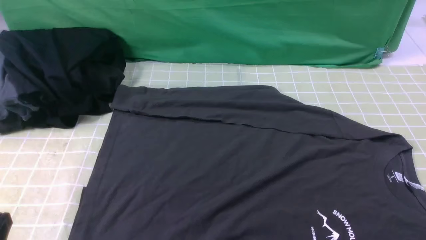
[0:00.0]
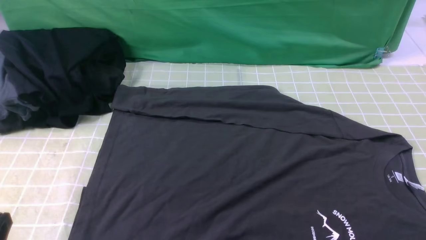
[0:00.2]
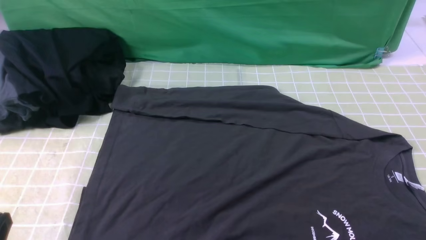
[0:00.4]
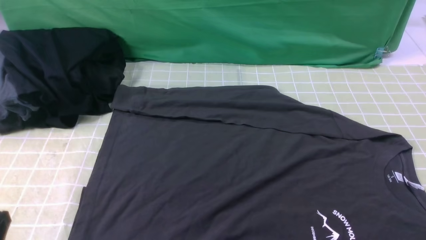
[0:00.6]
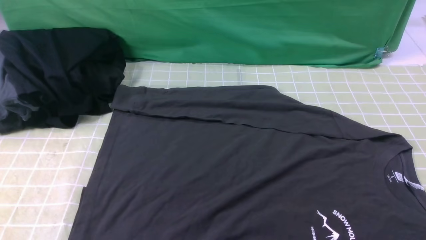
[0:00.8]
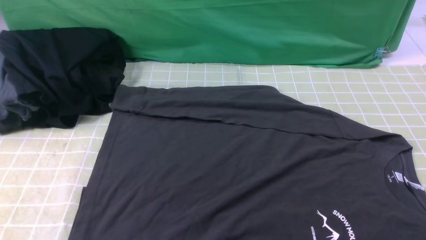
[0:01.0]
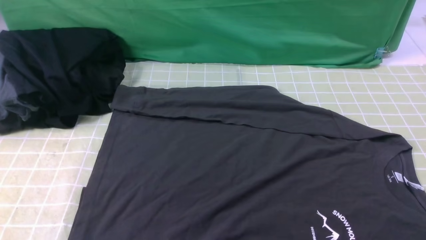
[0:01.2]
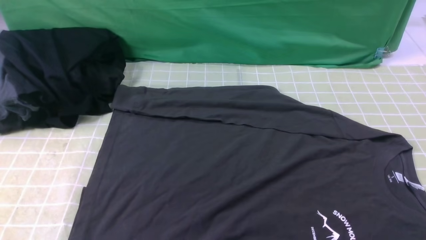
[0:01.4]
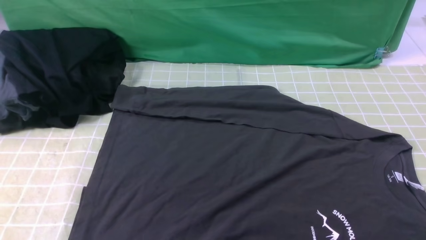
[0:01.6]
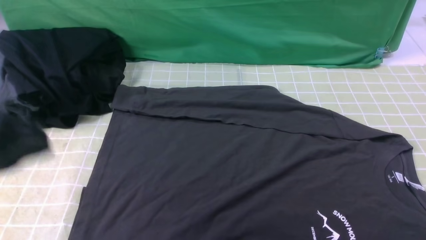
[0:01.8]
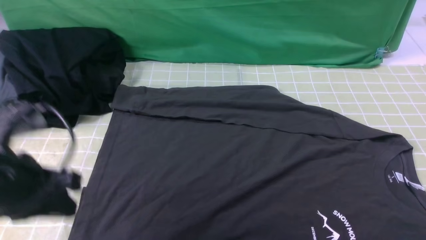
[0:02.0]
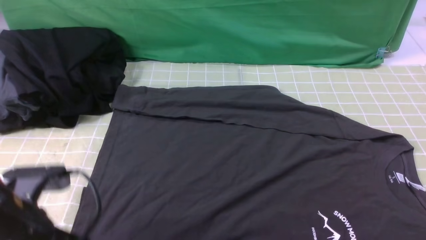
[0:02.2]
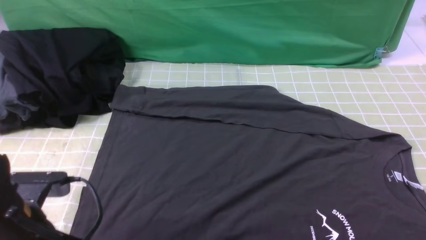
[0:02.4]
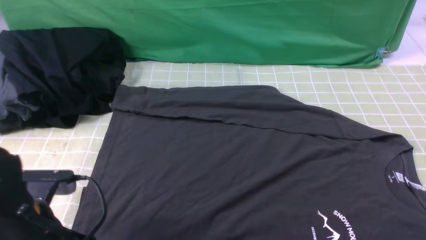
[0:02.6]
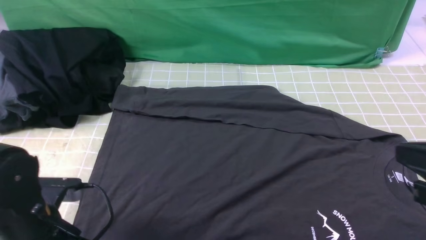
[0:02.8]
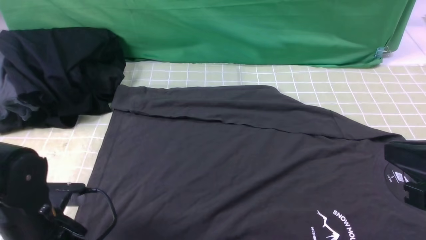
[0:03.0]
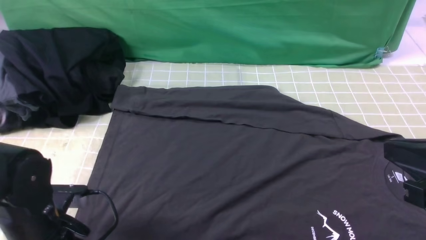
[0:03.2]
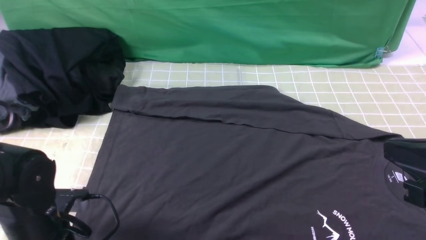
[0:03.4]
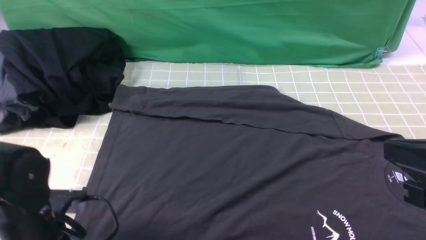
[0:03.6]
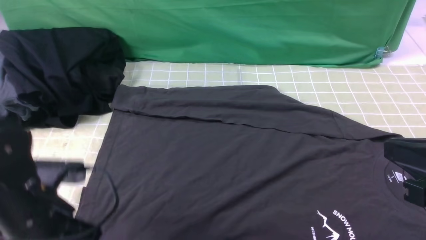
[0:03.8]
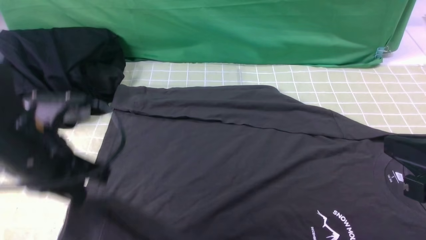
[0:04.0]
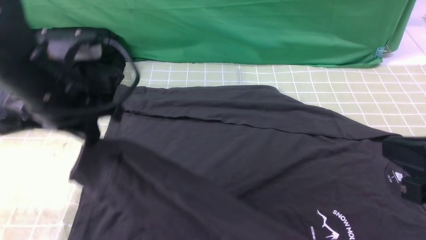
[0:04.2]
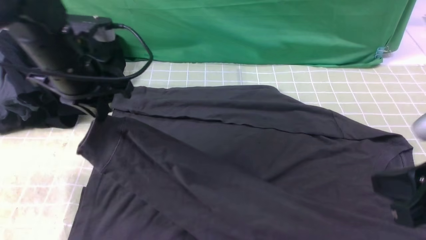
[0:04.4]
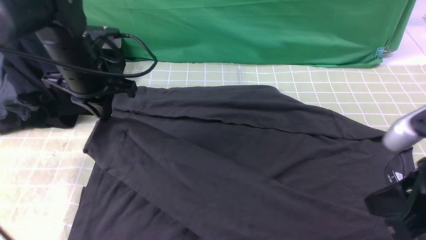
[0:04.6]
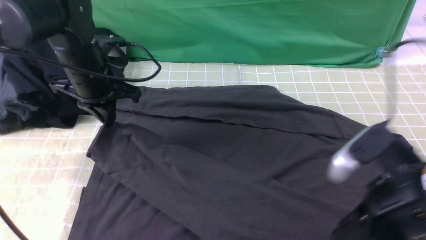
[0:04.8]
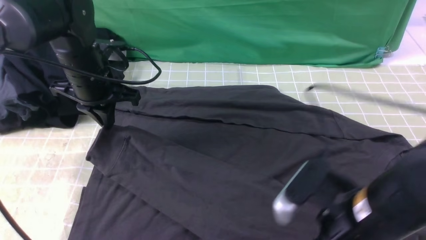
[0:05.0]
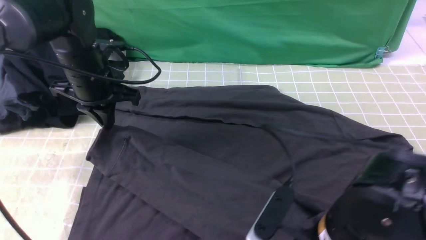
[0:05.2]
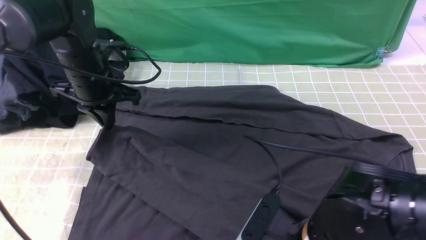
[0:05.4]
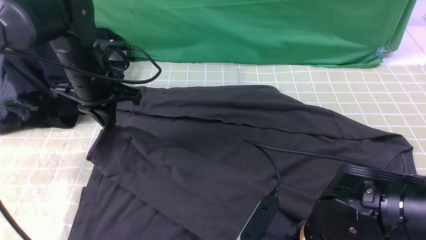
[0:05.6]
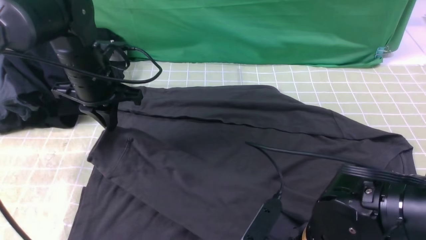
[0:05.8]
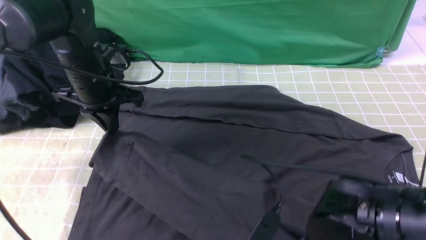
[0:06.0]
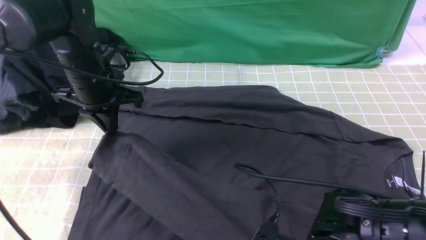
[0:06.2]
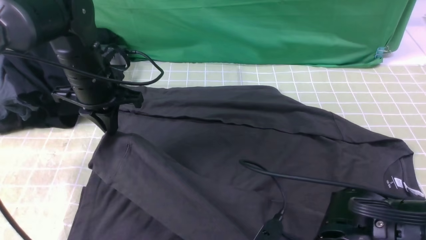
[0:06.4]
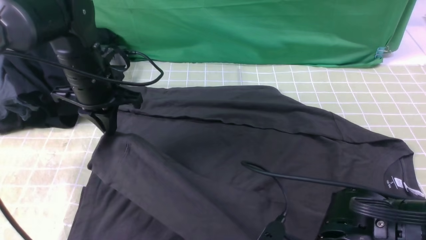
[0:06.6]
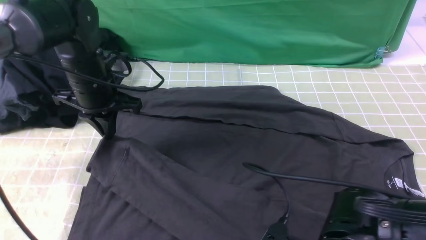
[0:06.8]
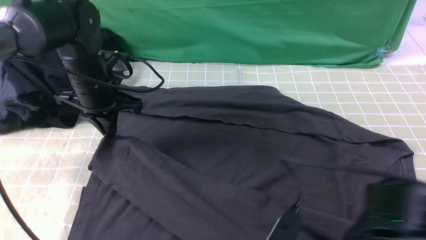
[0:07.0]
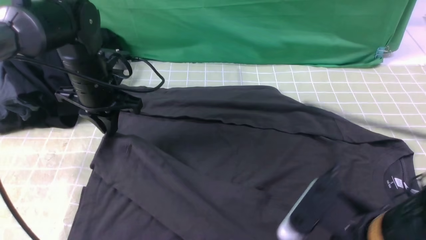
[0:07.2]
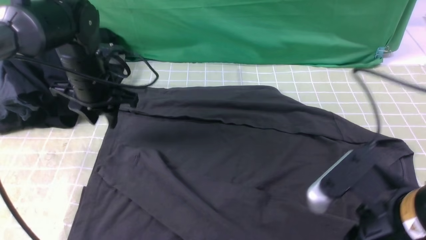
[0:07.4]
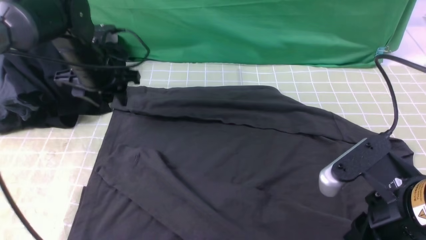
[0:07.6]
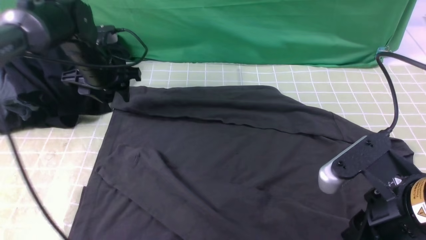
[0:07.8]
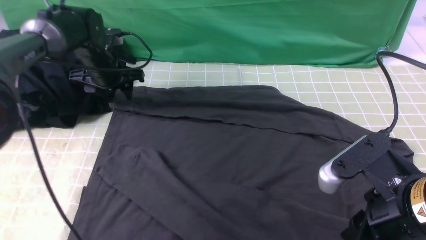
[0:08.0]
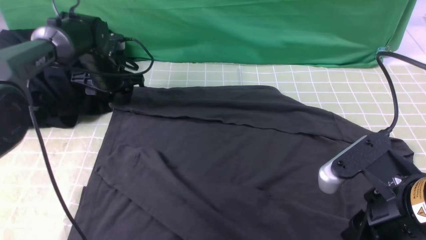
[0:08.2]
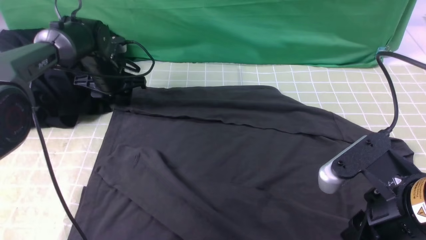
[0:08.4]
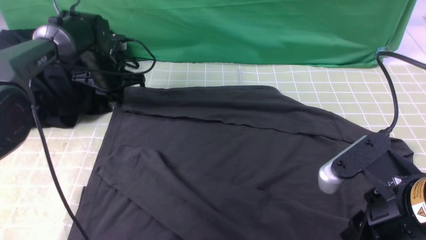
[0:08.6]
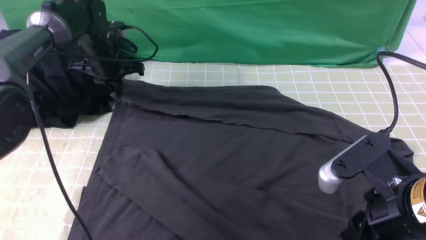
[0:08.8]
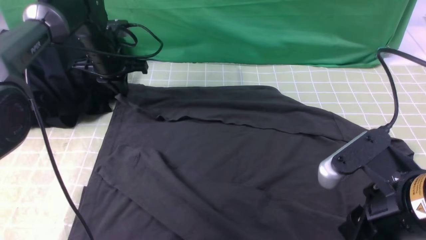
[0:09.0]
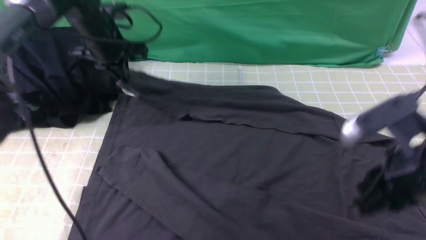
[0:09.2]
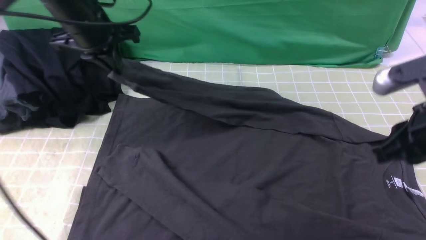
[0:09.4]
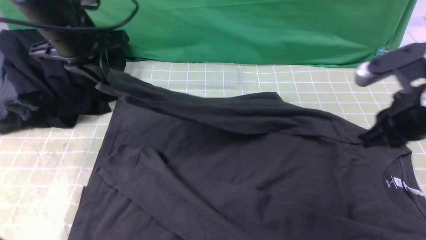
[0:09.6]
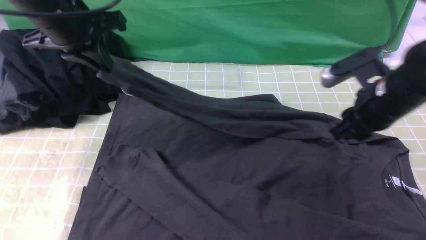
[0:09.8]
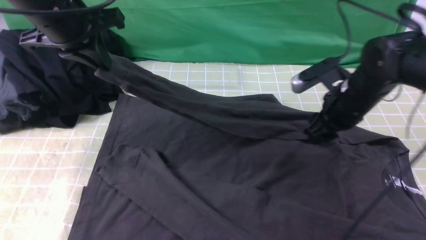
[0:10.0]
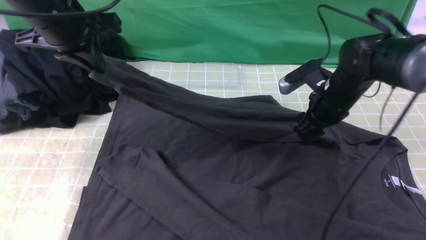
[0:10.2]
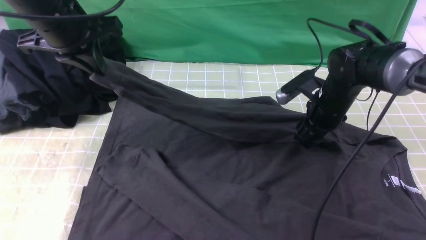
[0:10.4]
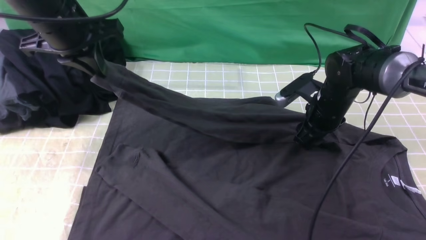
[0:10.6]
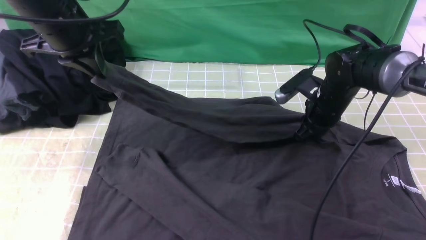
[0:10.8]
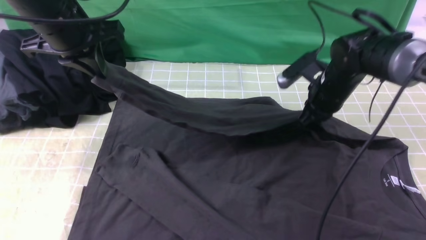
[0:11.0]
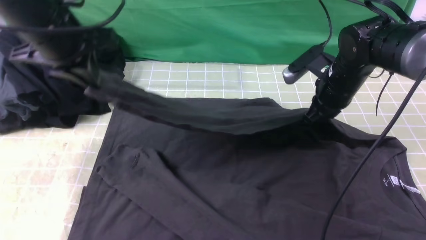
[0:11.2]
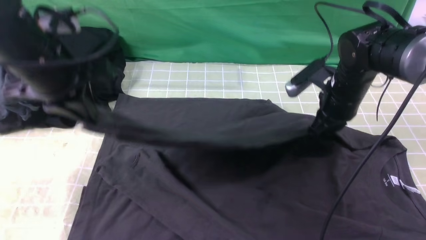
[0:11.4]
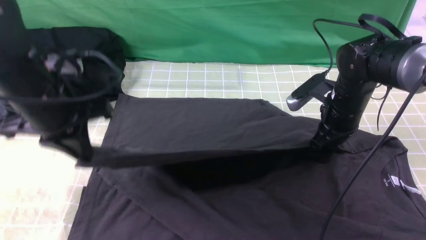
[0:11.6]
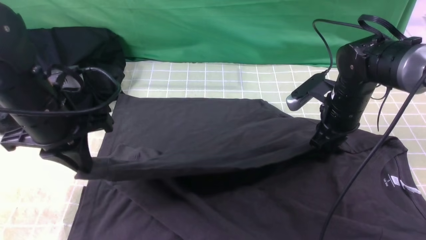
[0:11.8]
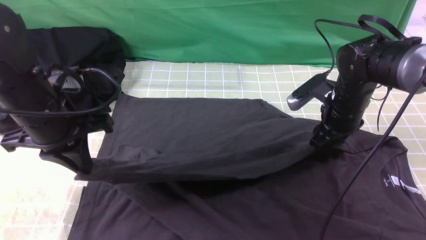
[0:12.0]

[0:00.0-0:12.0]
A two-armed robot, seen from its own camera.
Step, 0:00.0 to 0:03.2: use the left arm to clamp the cuff closest to it.
Step, 0:03.6 to 0:07.2: use the left arm to drag and place the cuff at the centered position on the left edge of the fabric.
Step, 0:07.6 to 0:08.4: use the left arm to clamp the cuff farthest from it.
0:01.6 to 0:03.0: The left gripper shifts roughly 20 cm downward and forward, and opens, while the right gripper heads forward, upward and to the left, covering some 15 cm, and closes its fingers.
0:03.0 to 0:04.4: The left gripper moves forward and upward, some 20 cm, and closes.
0:04.4 to 0:06.0: The right gripper shifts some 20 cm to the left and downward, and opens and closes again; the left gripper goes roughly 5 cm downward and forward.
0:06.0 to 0:07.6: The right gripper goes roughly 15 cm upward and to the right, while the left gripper changes place by about 5 cm, and opens.
0:07.6 to 0:09.0: The left gripper shifts roughly 5 cm forward, and closes.
0:09.0 to 0:10.4: The right gripper shifts roughly 25 cm forward and downward, and opens, while the left gripper moves backward and upward, roughly 15 cm.
0:10.4 to 0:12.0: The left gripper travels downward and backward by some 10 cm; the right gripper closes and opens again.

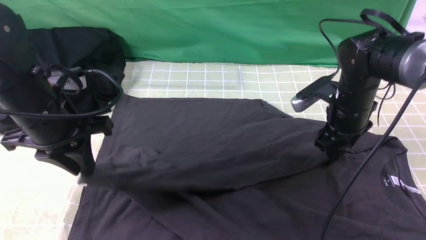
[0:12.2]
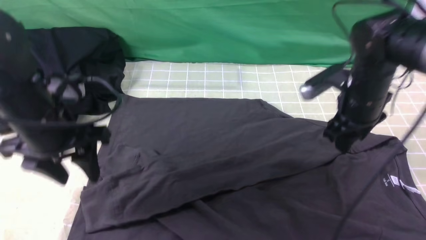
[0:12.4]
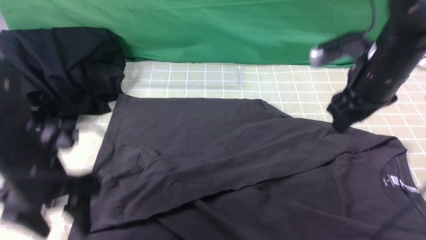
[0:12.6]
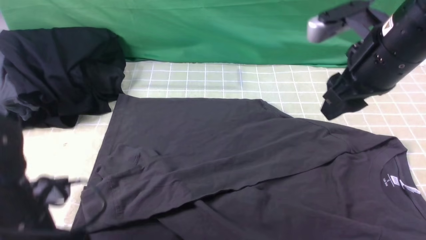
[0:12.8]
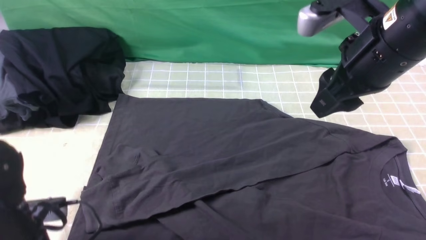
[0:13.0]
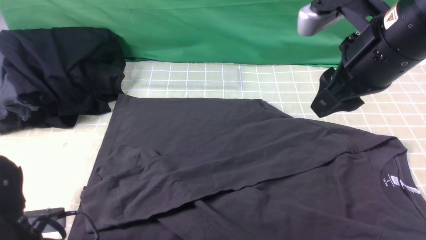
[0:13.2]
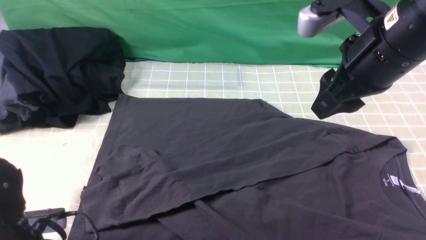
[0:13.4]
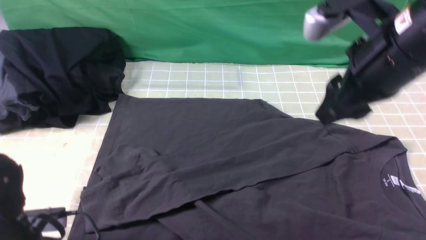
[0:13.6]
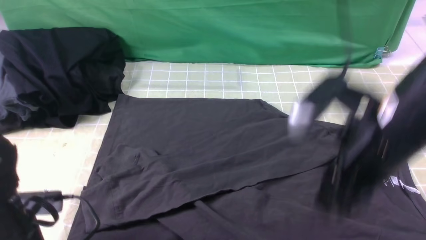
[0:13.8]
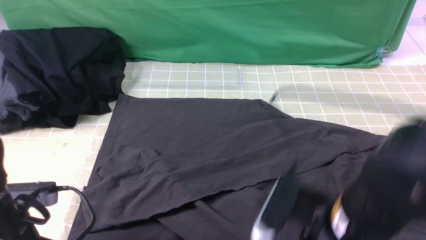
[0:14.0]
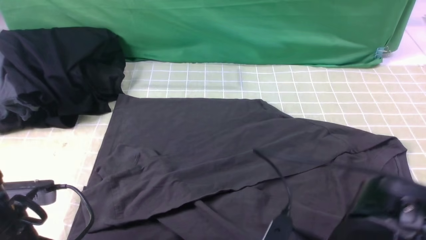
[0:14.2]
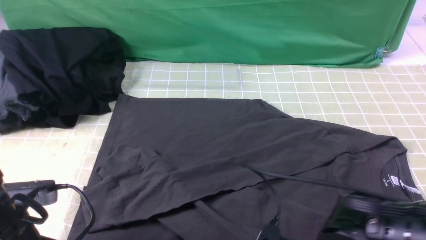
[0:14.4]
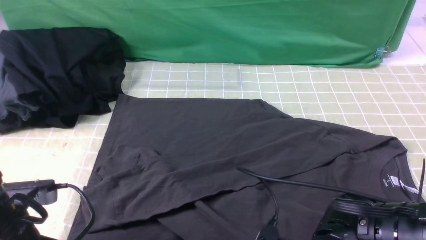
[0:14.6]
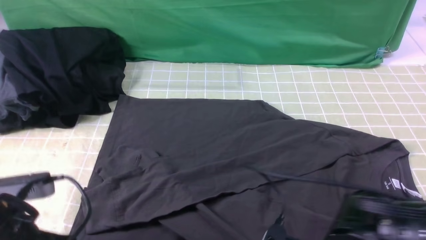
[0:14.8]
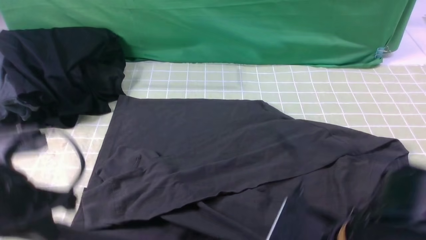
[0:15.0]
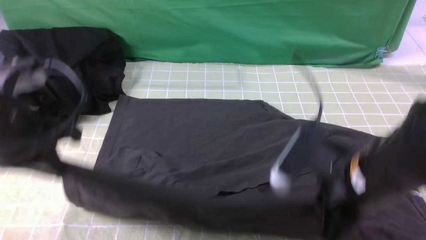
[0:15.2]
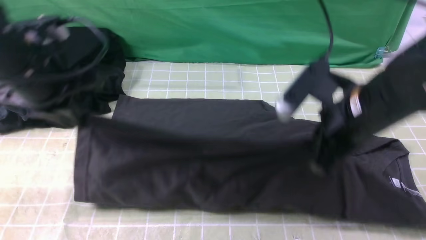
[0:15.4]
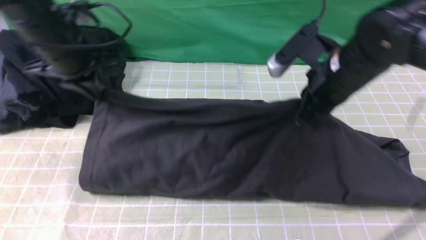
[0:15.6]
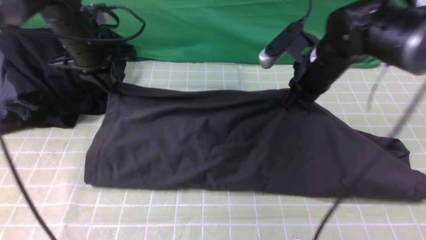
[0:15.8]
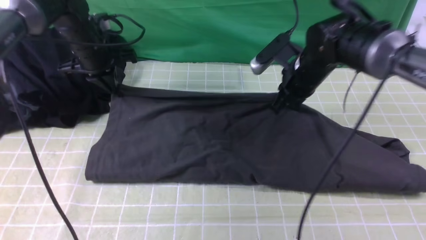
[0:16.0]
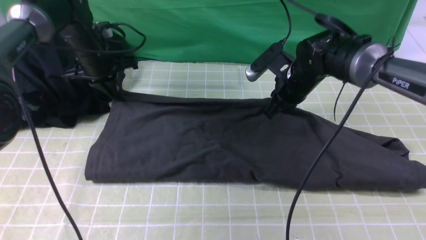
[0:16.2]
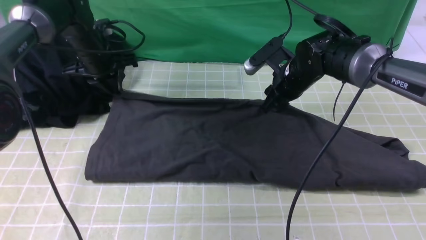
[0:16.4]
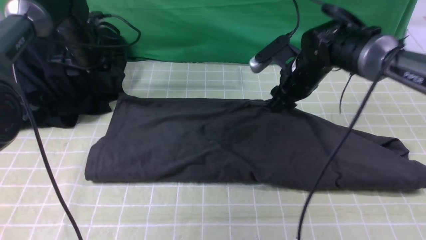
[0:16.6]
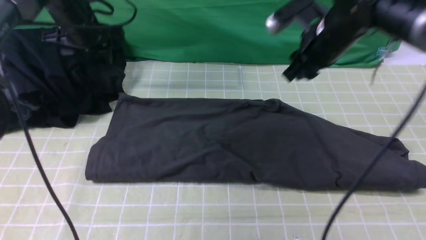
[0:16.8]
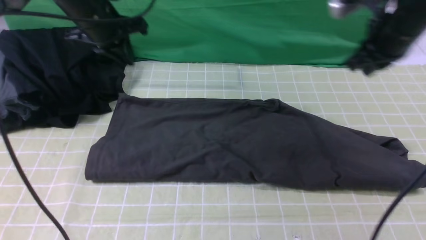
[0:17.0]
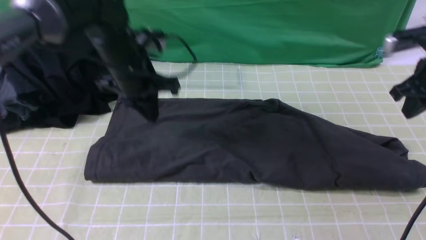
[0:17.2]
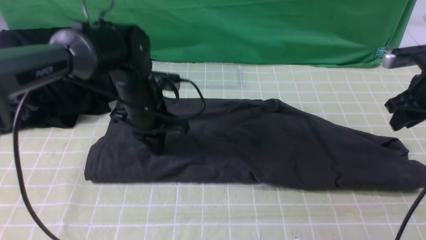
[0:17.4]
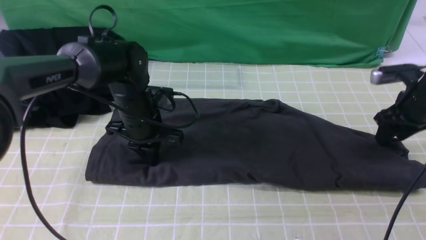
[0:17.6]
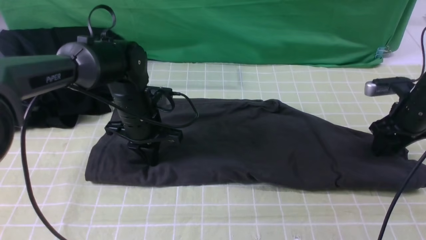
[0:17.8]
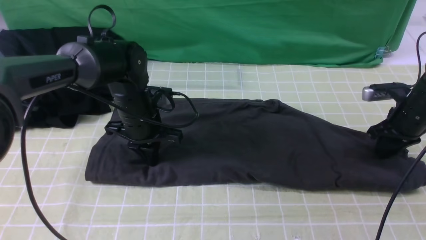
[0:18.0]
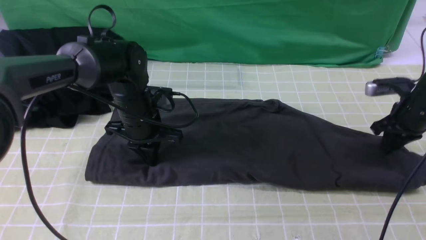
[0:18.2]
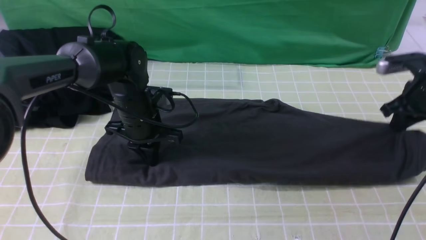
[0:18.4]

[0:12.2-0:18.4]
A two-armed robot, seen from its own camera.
Step, 0:12.6 to 0:14.6: use both arms simultaneously to clamp the lower edge of the clothing fabric.
Step, 0:14.8 to 0:16.6: use both arms to drag the lower edge of the fabric forward and fold it over the upper edge.
0:12.2 to 0:13.8: The left gripper is displaced backward and downward by some 15 cm, and closes. The right gripper is displaced backward and upward by some 20 cm.
0:13.8 to 0:15.4: The left gripper is displaced forward and upward by some 20 cm, while the right gripper is displaced forward by roughly 5 cm, and closes up.
0:15.4 to 0:16.8: Both grippers travel together forward, some 15 cm. The left gripper opens.
0:16.8 to 0:18.4: The left gripper moves downward, to the right and backward, about 15 cm, and closes up. The right gripper shifts approximately 20 cm to the right and downward, and closes its fingers.
